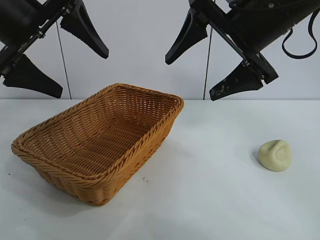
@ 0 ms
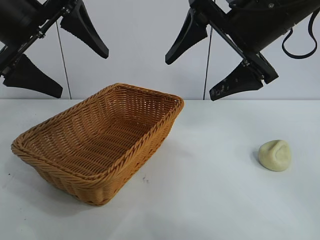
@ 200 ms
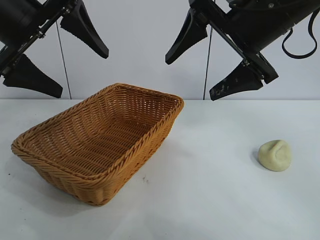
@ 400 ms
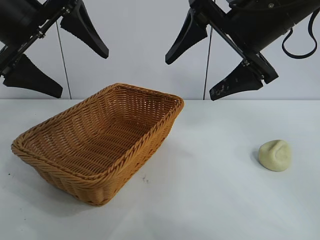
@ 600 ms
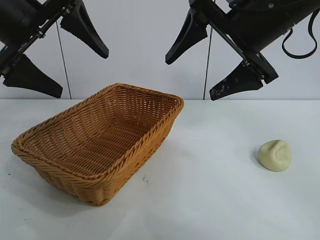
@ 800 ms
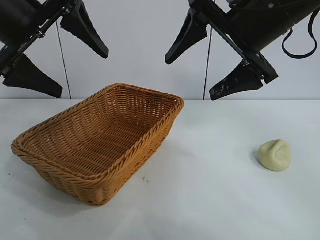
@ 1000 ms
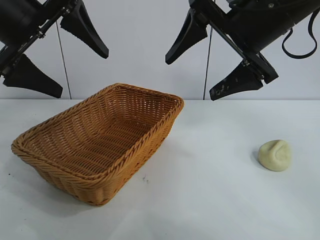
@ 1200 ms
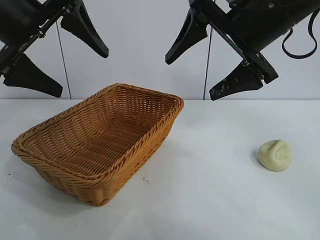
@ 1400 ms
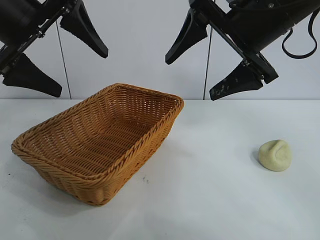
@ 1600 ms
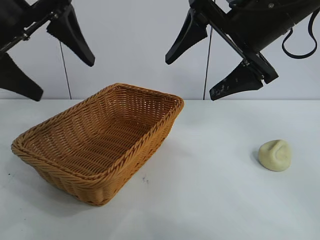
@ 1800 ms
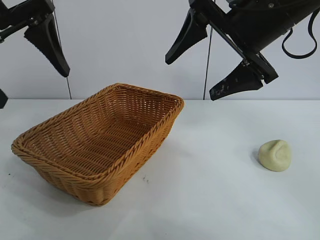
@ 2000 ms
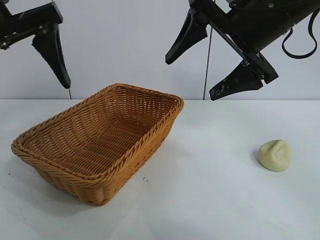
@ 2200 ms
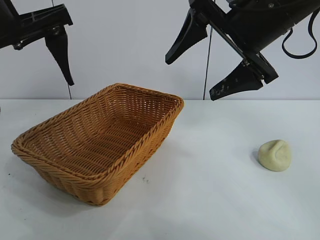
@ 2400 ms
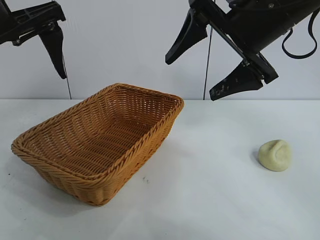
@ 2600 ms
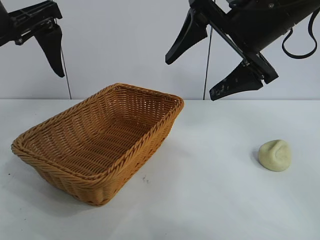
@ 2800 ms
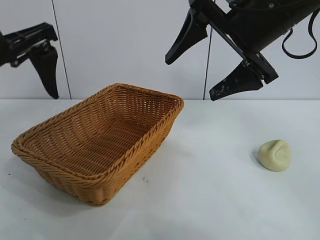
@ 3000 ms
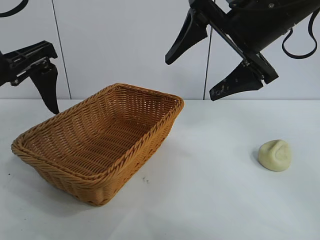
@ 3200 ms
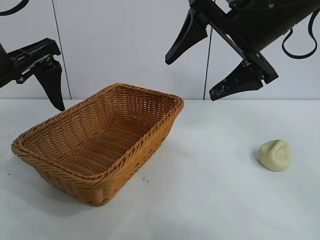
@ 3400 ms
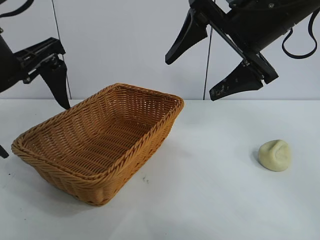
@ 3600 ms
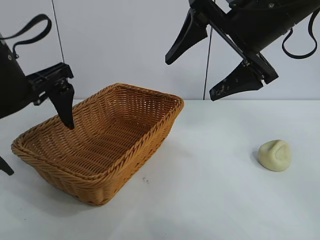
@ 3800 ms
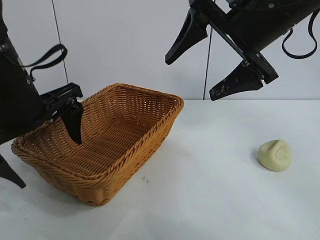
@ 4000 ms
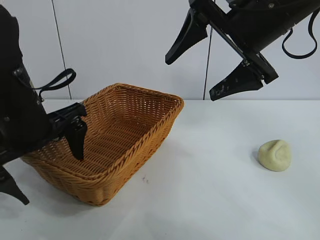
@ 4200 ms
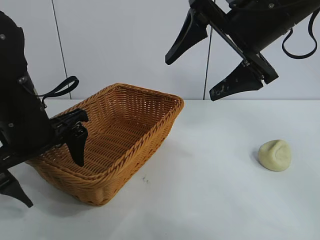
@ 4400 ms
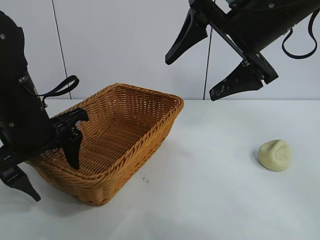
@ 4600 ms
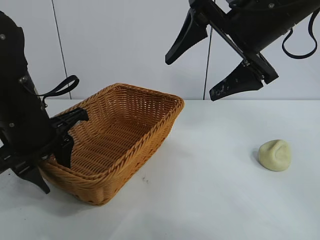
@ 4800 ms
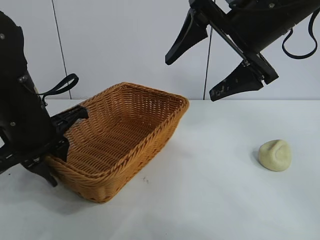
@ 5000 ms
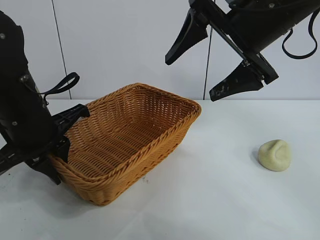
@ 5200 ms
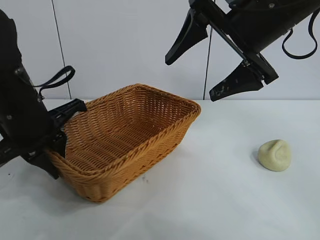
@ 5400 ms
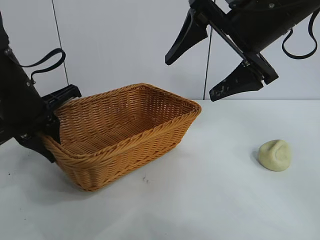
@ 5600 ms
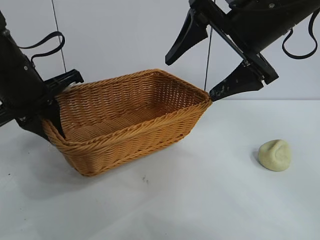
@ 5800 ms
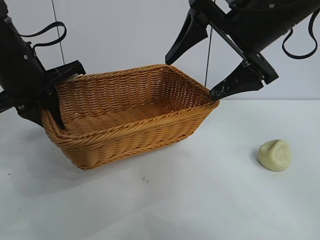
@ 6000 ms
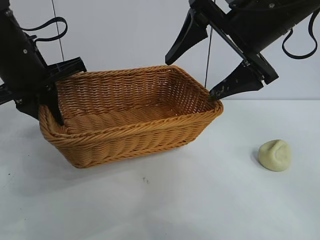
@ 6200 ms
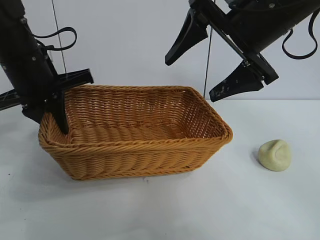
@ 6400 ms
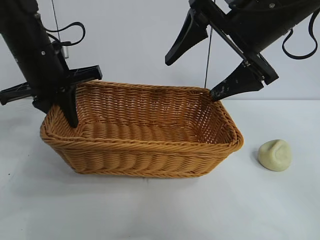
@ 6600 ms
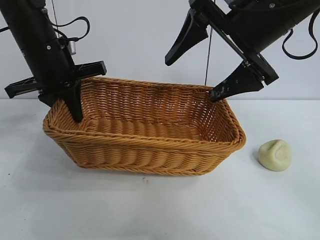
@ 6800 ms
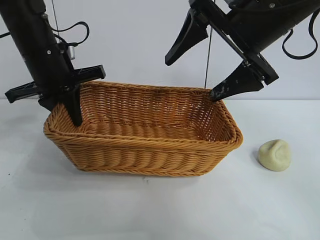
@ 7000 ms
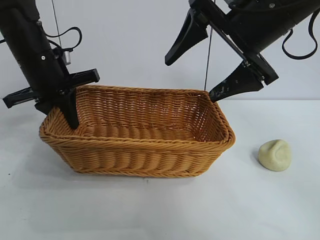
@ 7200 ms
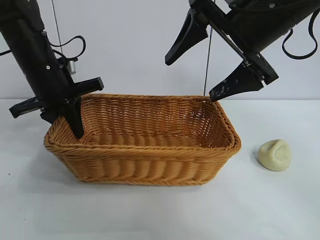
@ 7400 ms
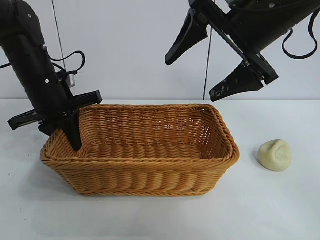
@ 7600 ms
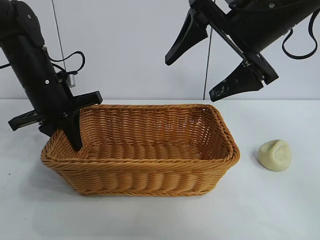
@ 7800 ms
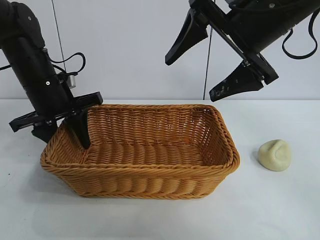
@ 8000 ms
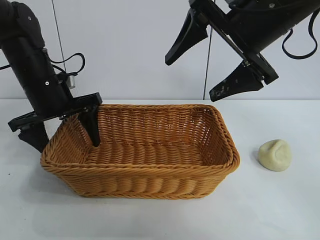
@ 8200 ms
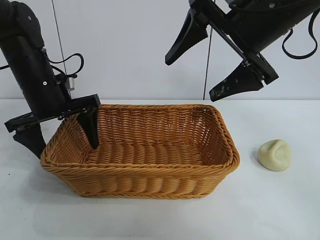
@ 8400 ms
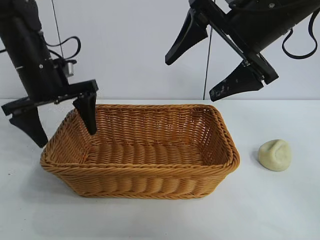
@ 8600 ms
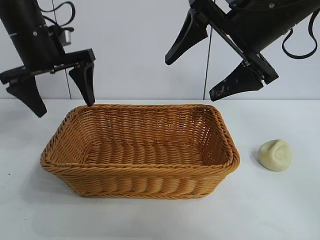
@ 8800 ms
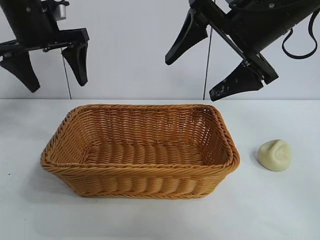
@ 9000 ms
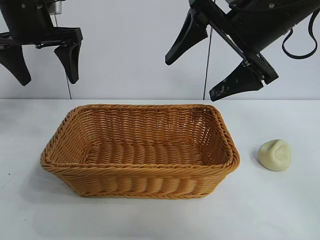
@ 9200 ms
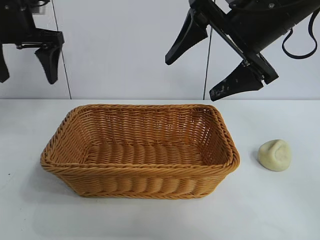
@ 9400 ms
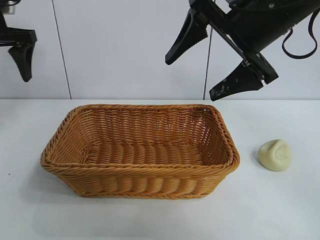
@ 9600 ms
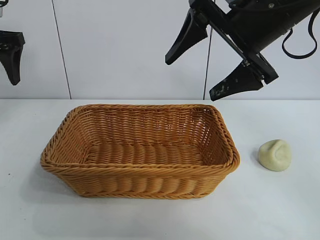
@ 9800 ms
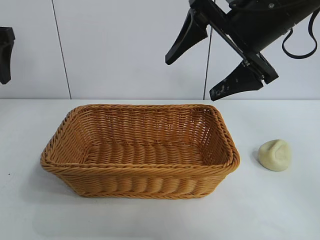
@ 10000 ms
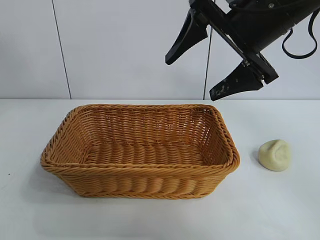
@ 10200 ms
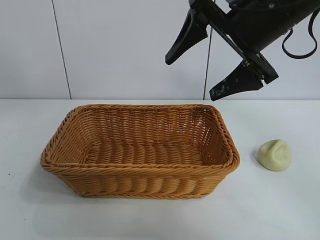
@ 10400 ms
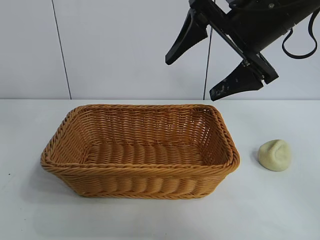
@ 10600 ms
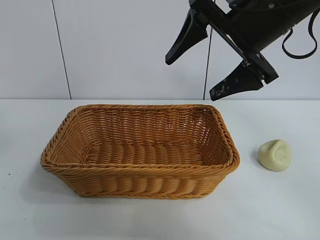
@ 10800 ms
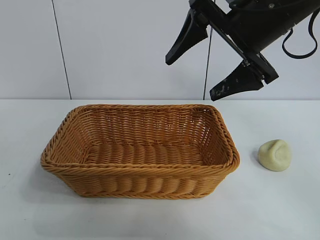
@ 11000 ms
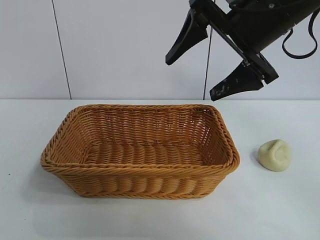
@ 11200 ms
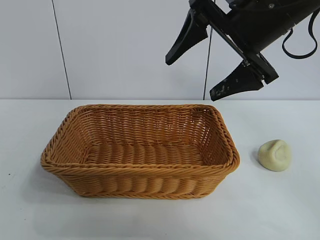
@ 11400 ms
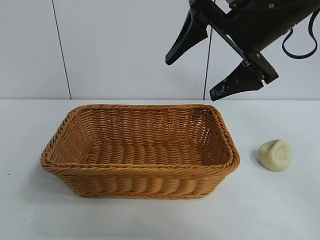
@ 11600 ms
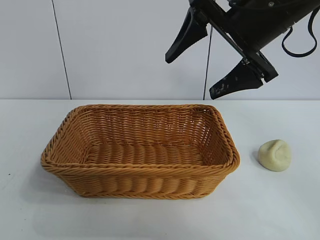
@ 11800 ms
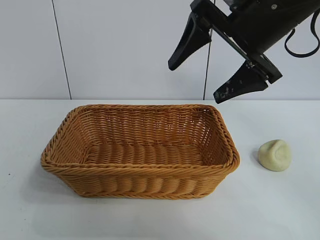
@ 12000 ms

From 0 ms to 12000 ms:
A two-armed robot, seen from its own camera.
Task of the whole recording: pick up the egg yolk pastry and put it into the basket.
Step, from 1400 ms to 5000 ms: Grasp the basket with left gripper.
Step, from 5400 ms to 8400 ms: Place the basket in the center of view with left gripper.

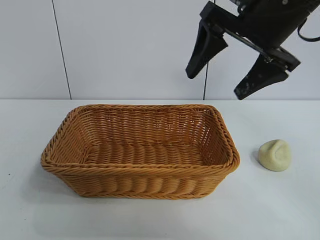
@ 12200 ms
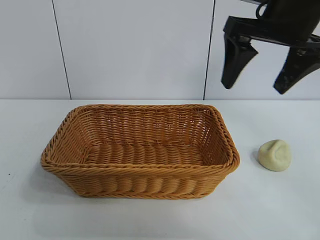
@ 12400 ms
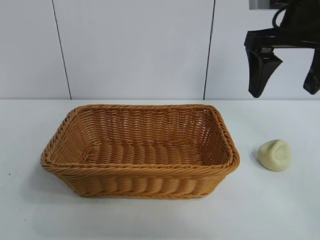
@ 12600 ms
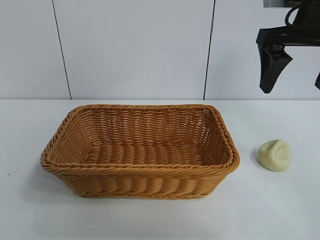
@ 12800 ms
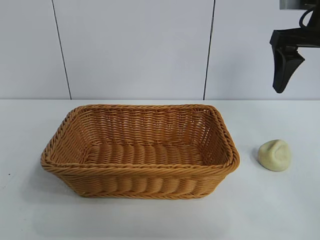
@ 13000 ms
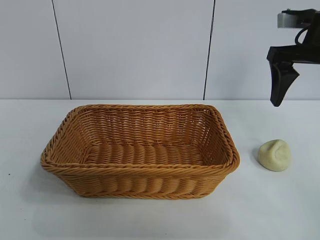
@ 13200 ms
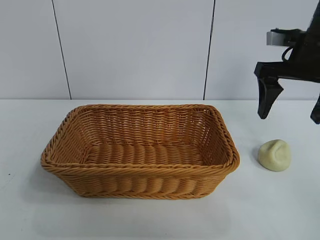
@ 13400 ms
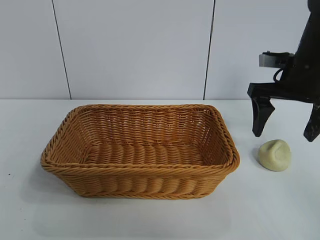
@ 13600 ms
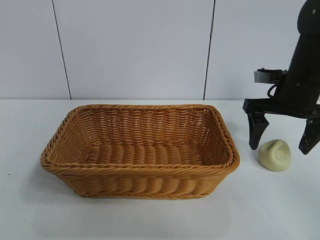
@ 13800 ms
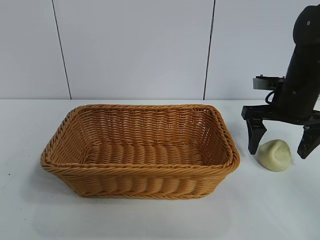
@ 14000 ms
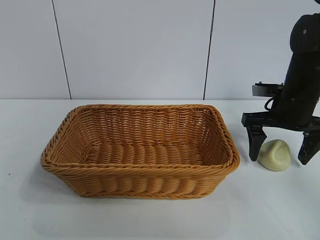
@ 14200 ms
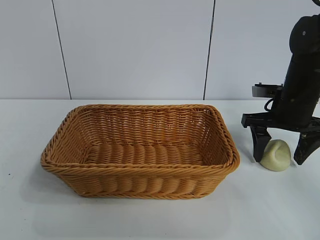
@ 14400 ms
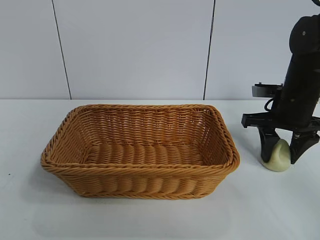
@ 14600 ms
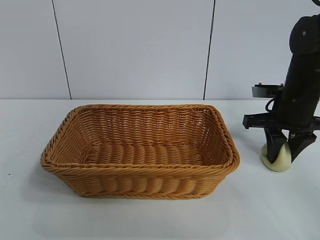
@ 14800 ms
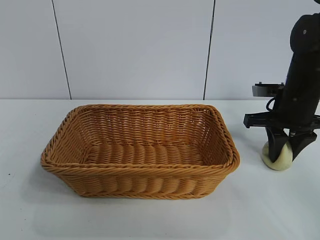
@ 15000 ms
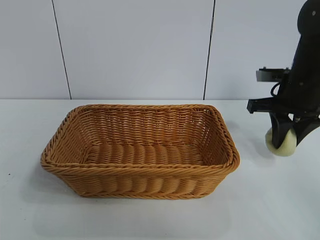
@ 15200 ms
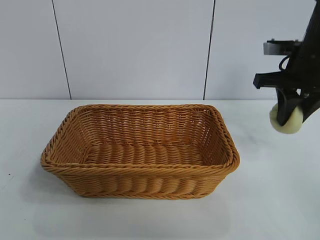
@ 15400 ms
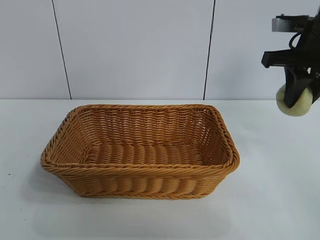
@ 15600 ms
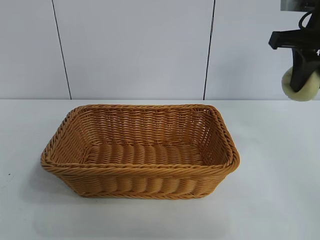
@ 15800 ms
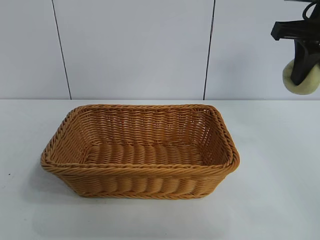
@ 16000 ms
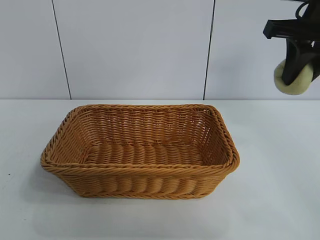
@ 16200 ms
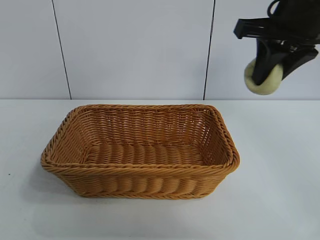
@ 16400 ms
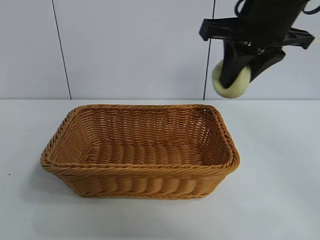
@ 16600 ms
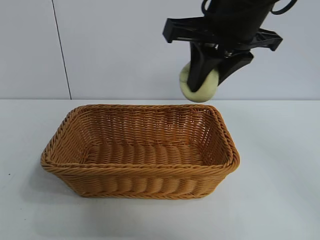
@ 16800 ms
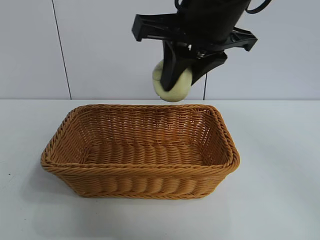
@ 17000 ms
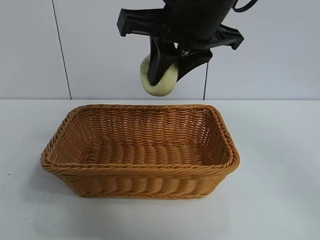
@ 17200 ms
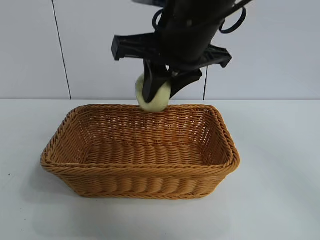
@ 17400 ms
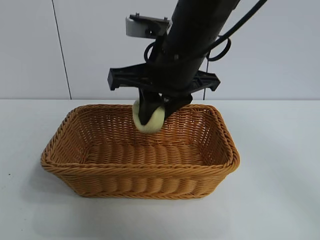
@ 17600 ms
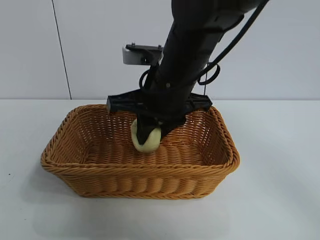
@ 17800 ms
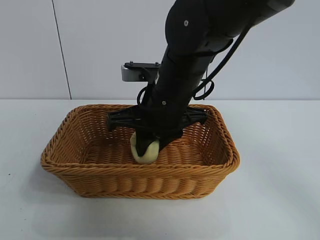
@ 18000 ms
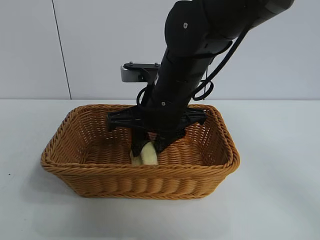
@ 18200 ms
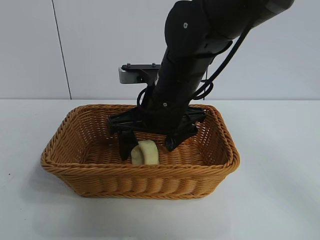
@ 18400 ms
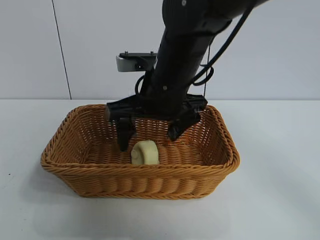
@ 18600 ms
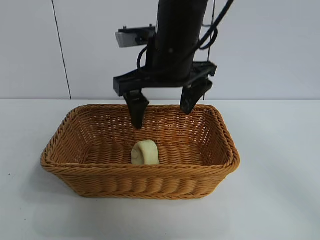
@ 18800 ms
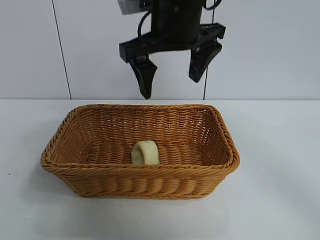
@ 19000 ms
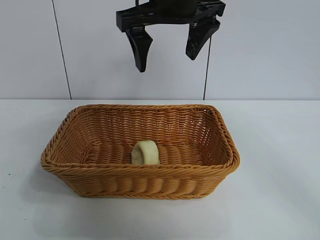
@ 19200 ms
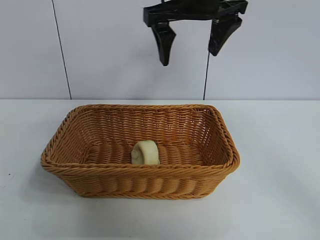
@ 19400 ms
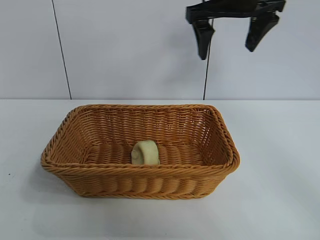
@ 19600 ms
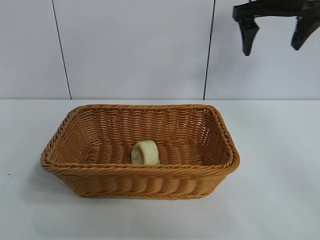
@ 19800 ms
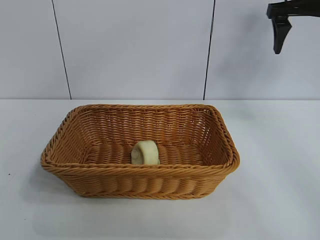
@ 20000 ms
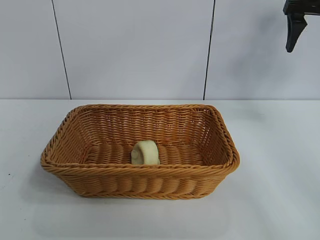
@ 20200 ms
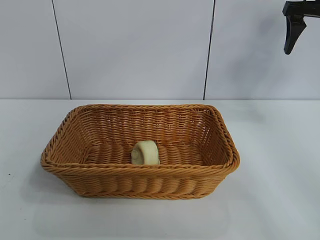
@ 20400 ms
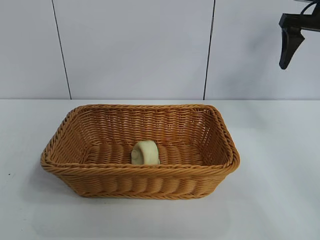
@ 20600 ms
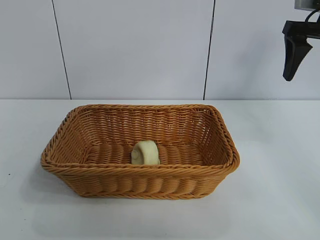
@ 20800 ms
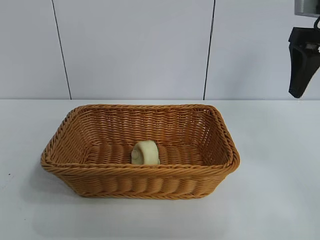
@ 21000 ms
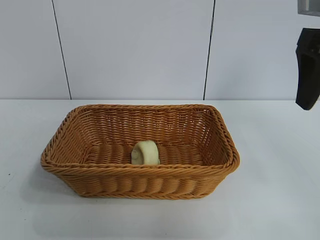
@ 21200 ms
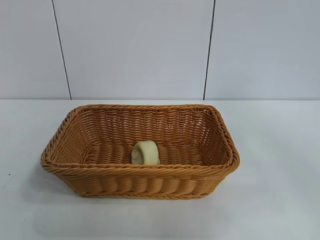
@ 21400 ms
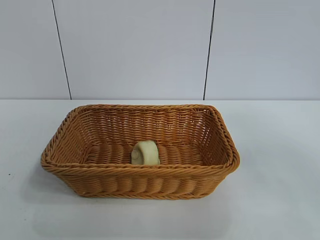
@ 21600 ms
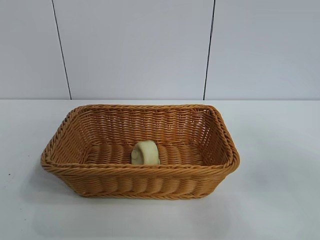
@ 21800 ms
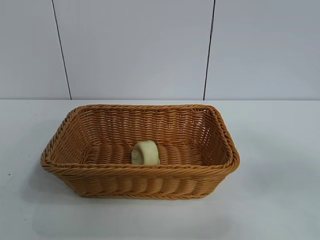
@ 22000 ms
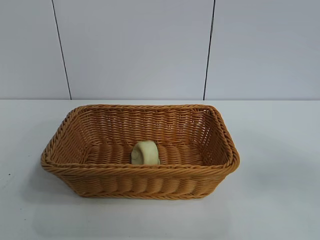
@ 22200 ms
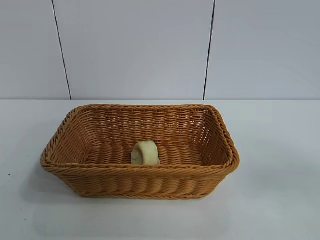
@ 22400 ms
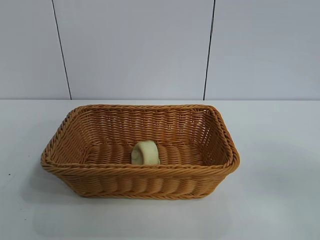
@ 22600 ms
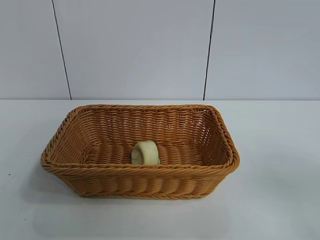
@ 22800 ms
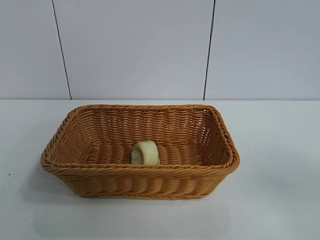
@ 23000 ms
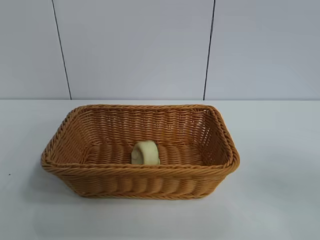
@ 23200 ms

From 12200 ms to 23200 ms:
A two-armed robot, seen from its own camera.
Task of the whole recording: pick up the egg yolk pastry and put it into the basket.
Step, from 12200 ms to 14800 ms: Grasp egg yolk pastry with right gripper.
Step, from 15000 ms to 18600 ms: Place the egg yolk pastry in the basket with right gripper.
